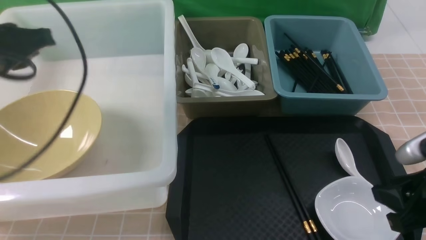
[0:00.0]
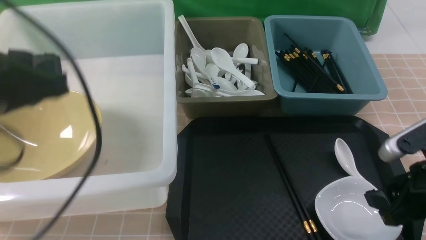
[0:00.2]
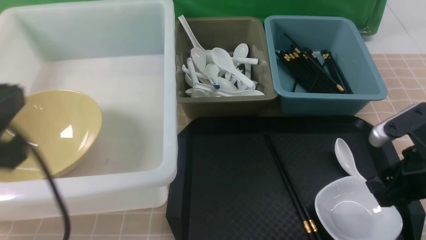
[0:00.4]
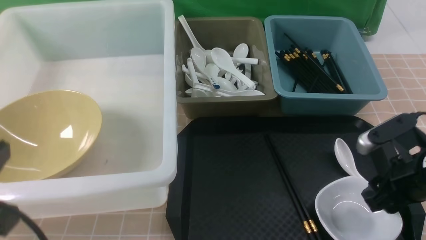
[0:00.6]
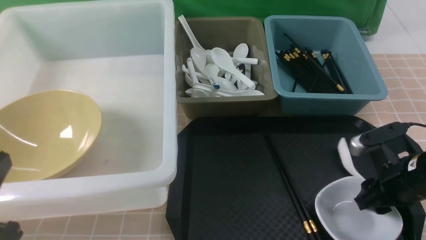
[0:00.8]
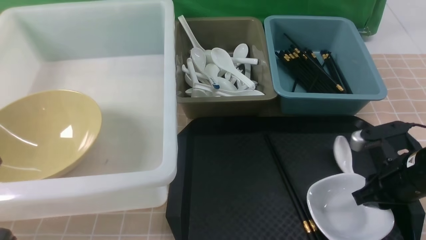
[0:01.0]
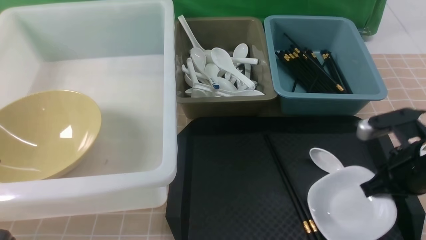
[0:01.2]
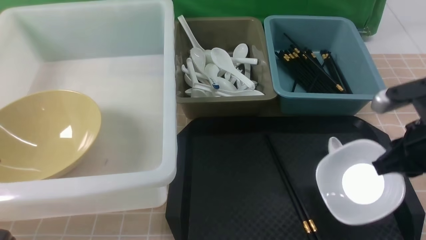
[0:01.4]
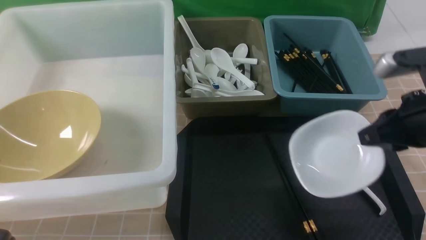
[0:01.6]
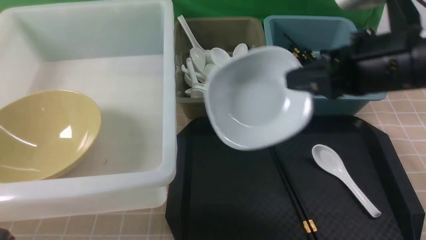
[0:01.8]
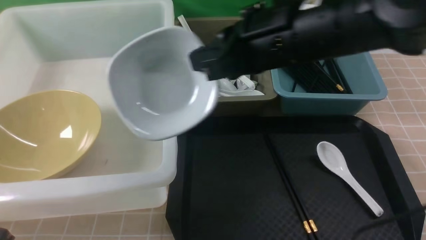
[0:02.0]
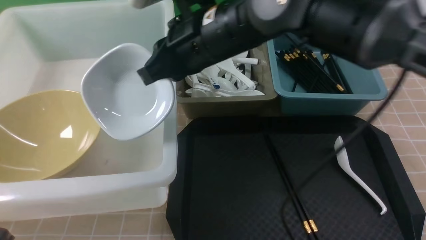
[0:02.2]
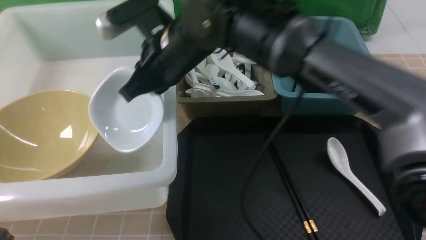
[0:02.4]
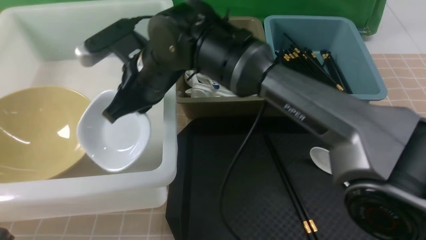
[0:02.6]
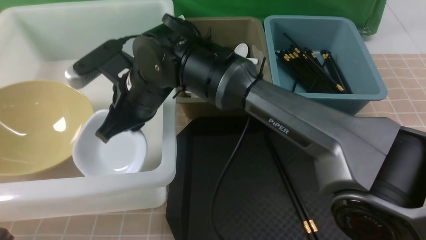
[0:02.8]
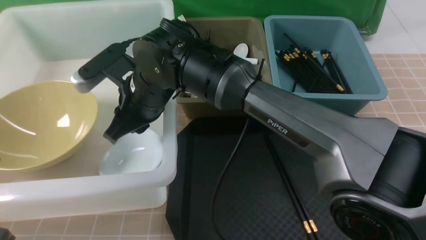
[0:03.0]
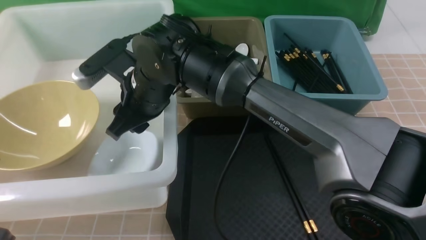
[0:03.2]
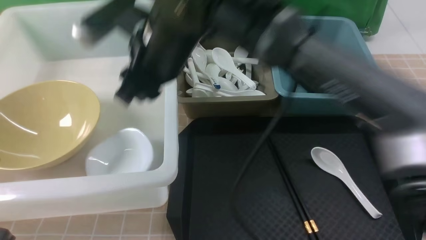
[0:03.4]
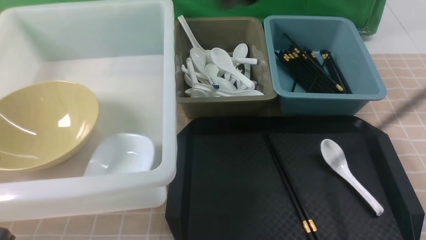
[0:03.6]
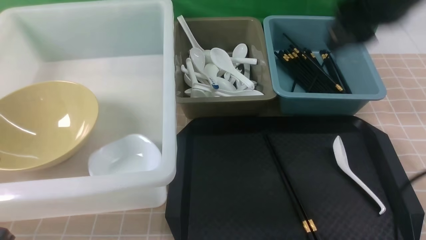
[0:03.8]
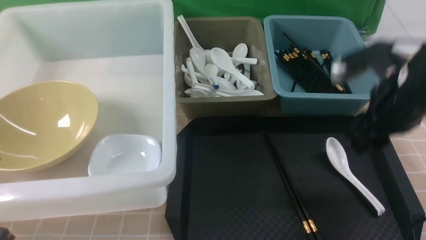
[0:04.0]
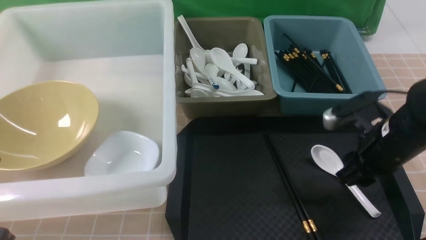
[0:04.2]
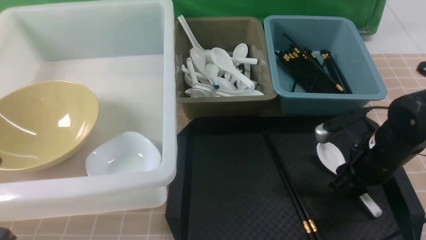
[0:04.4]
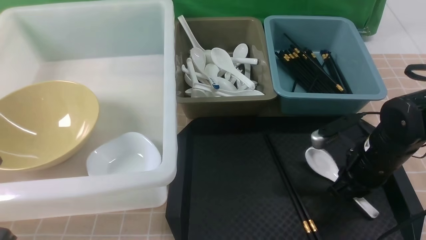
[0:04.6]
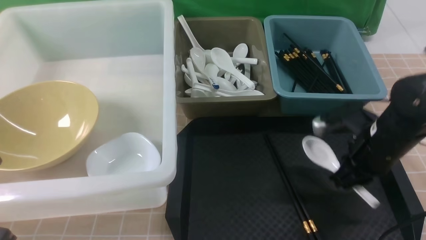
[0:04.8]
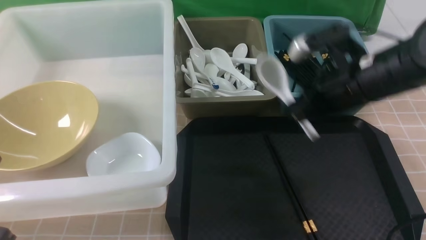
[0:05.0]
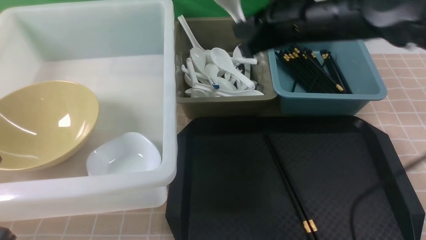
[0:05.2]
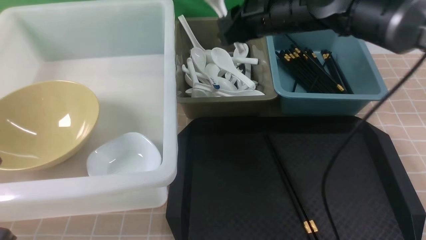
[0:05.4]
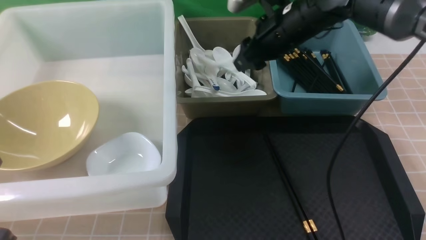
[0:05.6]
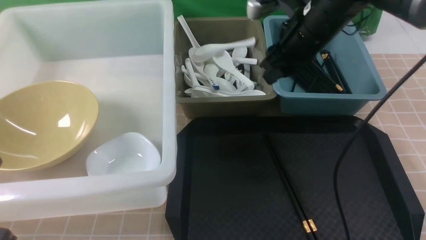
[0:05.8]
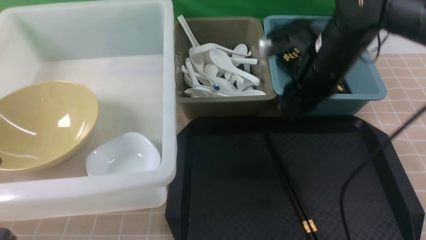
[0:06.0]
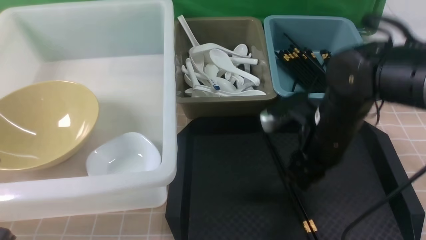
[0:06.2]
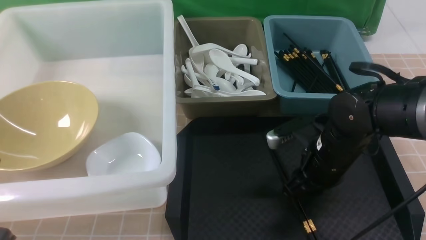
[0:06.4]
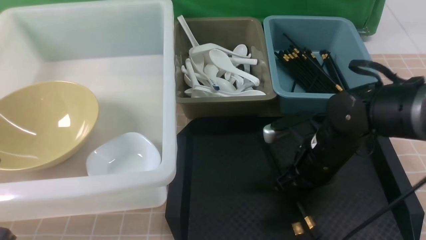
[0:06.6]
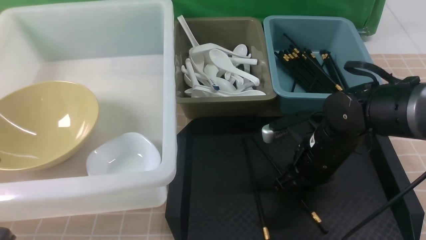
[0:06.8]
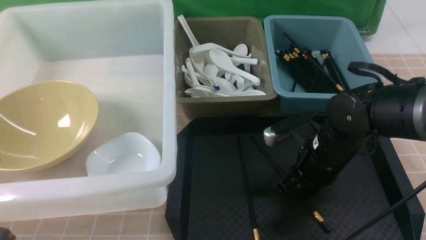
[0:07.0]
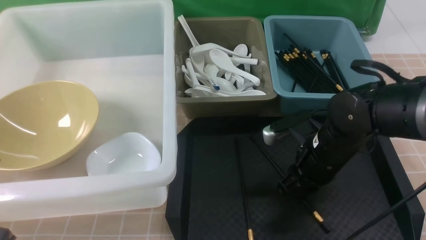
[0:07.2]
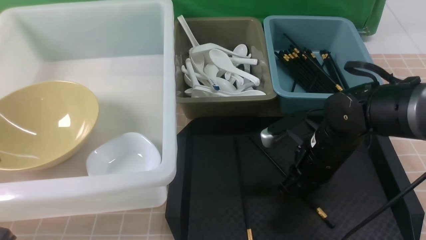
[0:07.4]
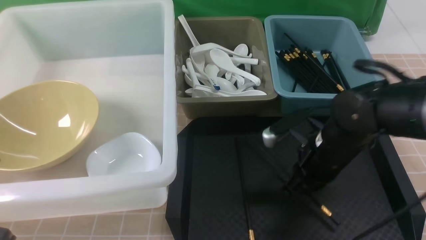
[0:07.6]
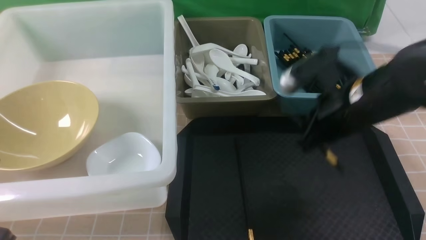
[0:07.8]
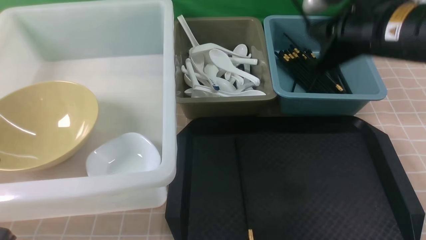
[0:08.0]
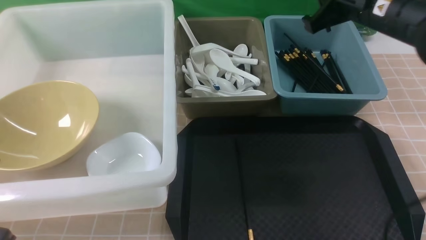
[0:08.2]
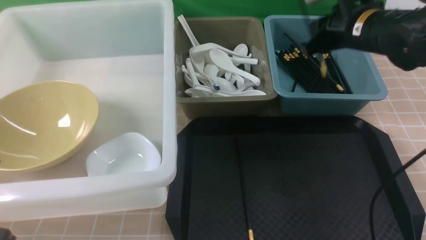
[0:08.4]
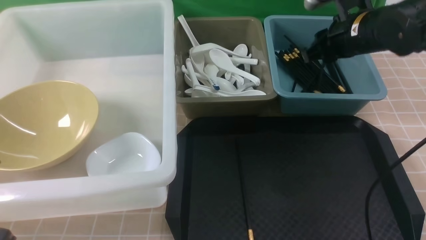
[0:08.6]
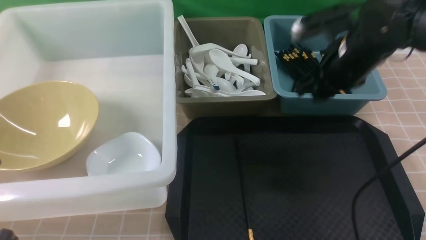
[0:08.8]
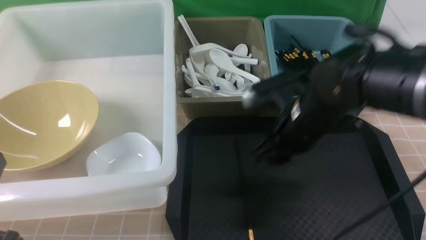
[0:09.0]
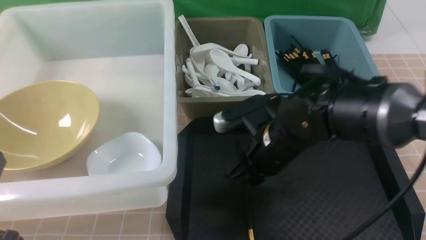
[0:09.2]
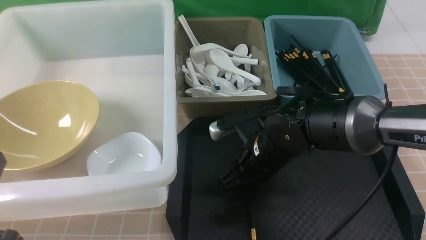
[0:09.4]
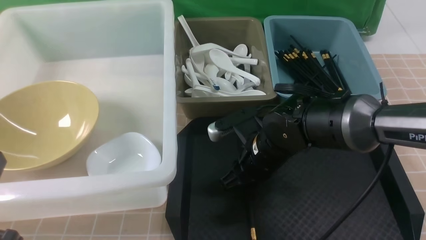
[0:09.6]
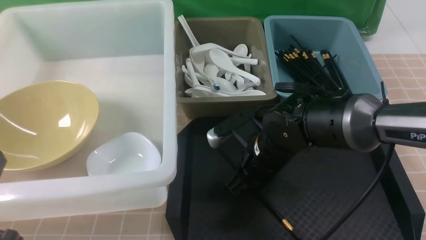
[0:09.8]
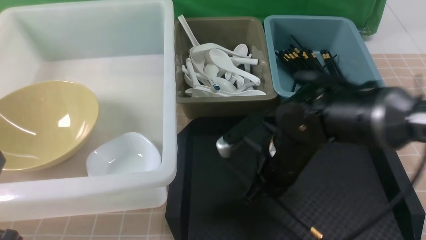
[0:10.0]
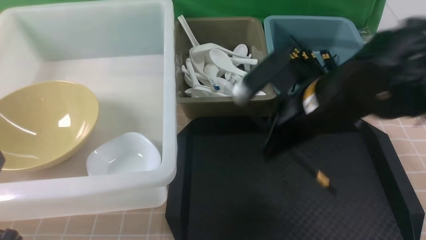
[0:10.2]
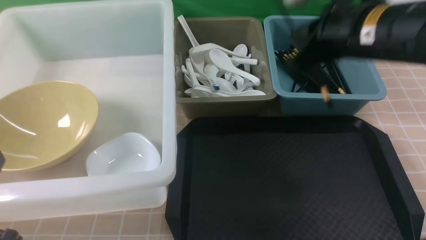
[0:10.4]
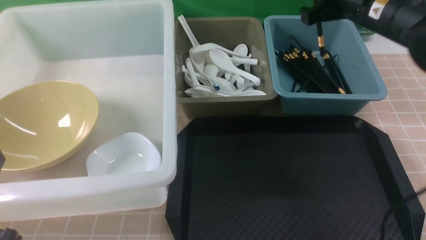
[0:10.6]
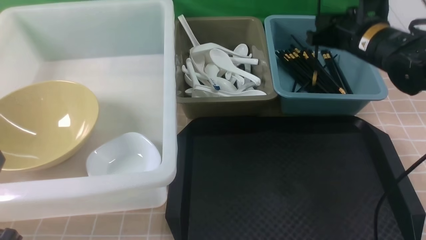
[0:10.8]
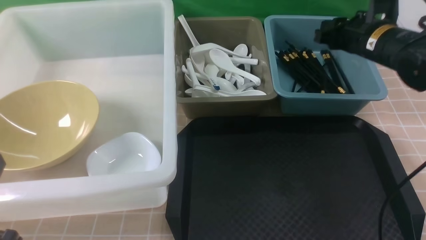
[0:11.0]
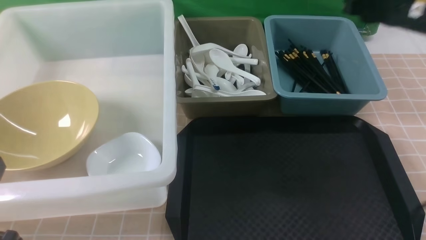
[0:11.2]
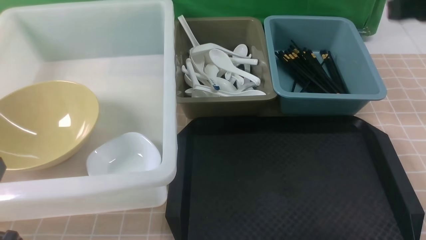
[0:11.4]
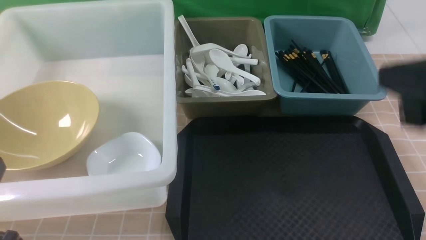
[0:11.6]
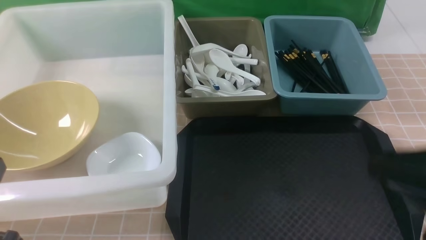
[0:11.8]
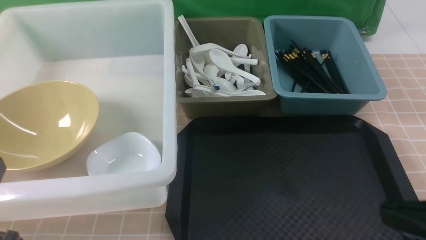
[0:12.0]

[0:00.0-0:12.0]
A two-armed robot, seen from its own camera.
Task of the whole recording: on brown table put chopsticks spoon bowls plates into blue grey white boxes.
Step, 0:00.0 to 0:01.4: use the right arm to grab the plate.
Step, 0:01.8 to 0:03.2: use the right arm to put the plate into the large storage box on the left.
Step, 0:03.4 to 0:05.0: use the right arm to grab the soup spoon in the middle.
Step, 0:05.2 to 0:06.0: use the right arm to put the soup spoon into the small storage box in the middle.
Step, 0:06.2 to 0:08.0: use the right arm to grab a chopstick.
Step, 0:08.2 to 0:08.6: use the right arm to put a chopstick into the small storage box on the right.
Step, 0:08.8 to 0:10.0: use the right arm to grab a chopstick.
Step, 0:10.2 to 0:11.2: use the right arm to put a chopstick into the small storage box on the right.
0:00.0 to 0:01.6: The right gripper shifts approximately 10 cm forward and upward, and closes its fingers, while the left gripper shifts some 20 cm backward.
0:01.6 to 0:03.0: The right gripper moves to the left, about 30 cm, and opens.
0:03.0 to 0:04.4: The right gripper travels to the right by approximately 35 cm.
0:04.4 to 0:06.0: The right gripper is displaced upward, to the left and forward by approximately 15 cm, and closes, then opens again.
0:06.0 to 0:07.6: The right gripper is displaced backward by roughly 5 cm, and closes.
0:07.6 to 0:09.0: The right gripper reaches approximately 10 cm upward, then returns, and opens its fingers.
0:09.0 to 0:10.4: The right gripper moves upward, roughly 10 cm, and closes its fingers.
0:10.4 to 0:12.0: The right gripper moves backward, some 25 cm, and opens, then closes again.

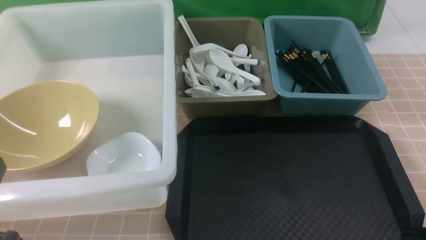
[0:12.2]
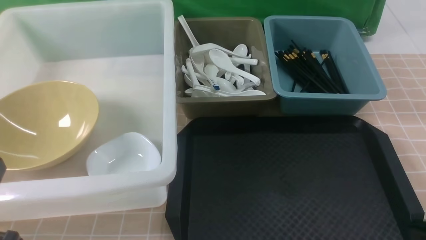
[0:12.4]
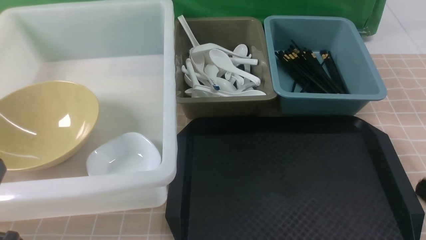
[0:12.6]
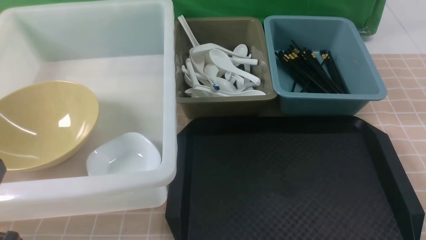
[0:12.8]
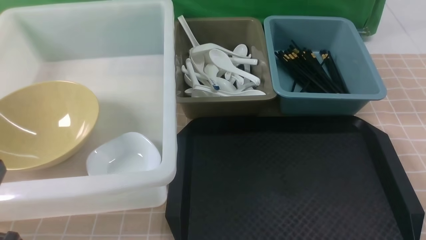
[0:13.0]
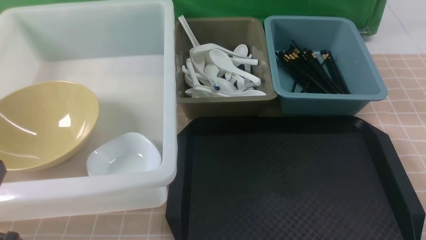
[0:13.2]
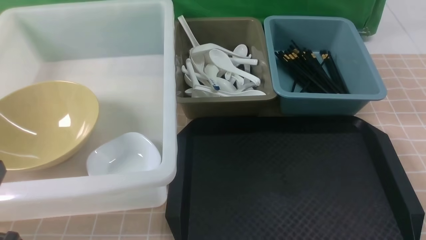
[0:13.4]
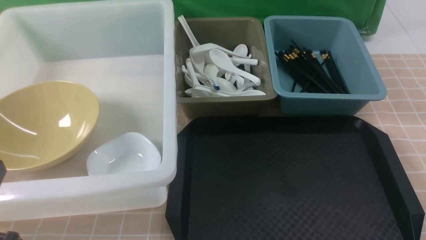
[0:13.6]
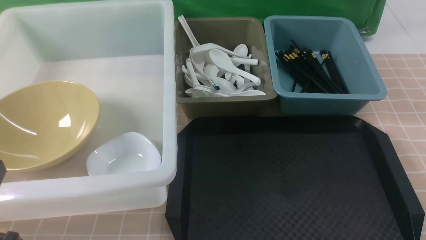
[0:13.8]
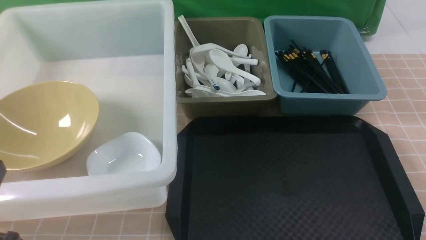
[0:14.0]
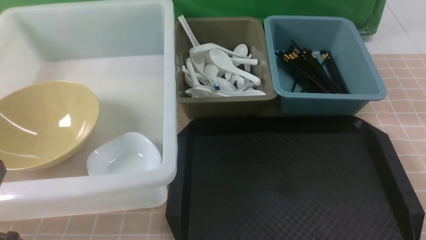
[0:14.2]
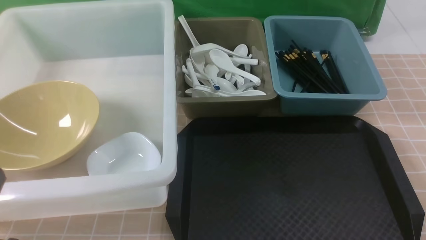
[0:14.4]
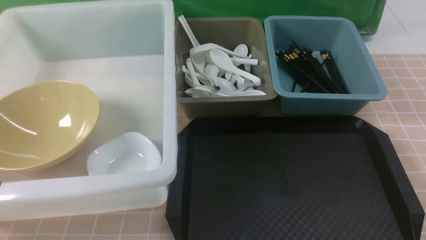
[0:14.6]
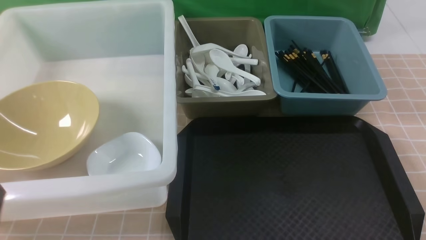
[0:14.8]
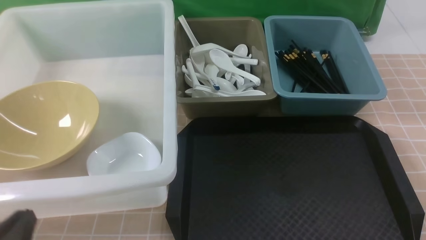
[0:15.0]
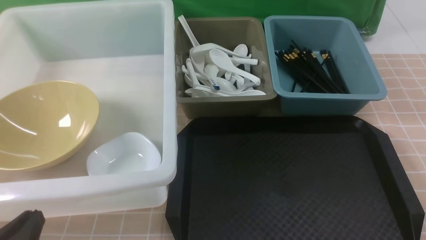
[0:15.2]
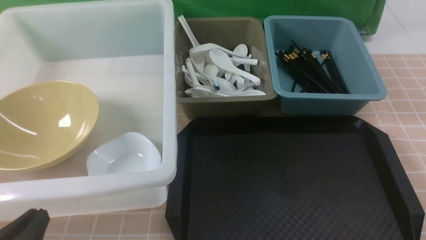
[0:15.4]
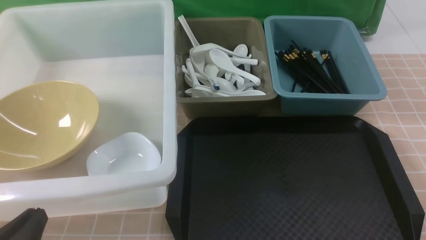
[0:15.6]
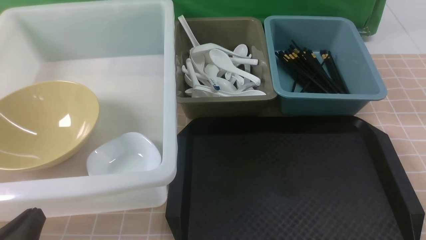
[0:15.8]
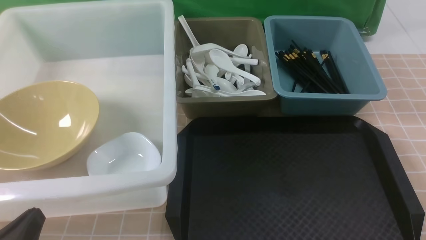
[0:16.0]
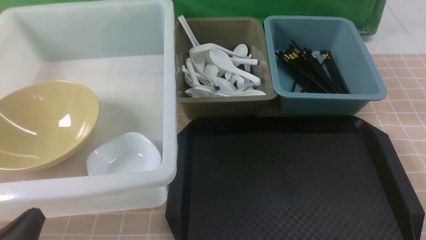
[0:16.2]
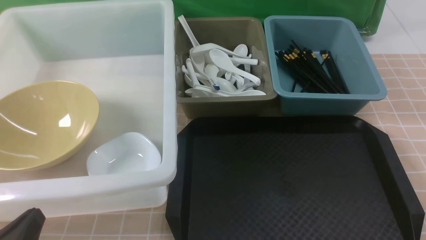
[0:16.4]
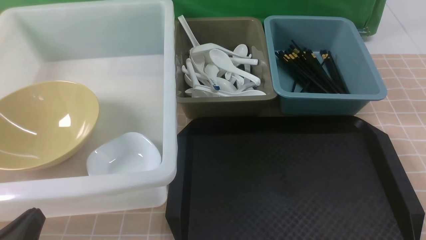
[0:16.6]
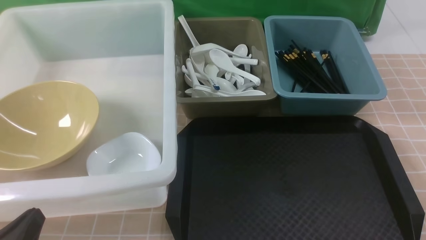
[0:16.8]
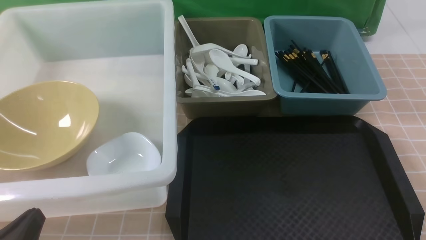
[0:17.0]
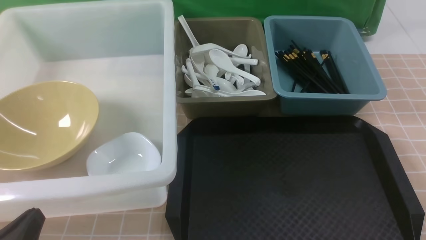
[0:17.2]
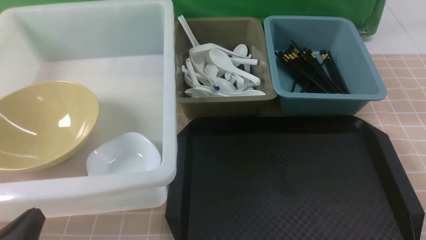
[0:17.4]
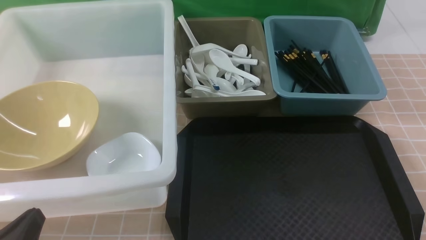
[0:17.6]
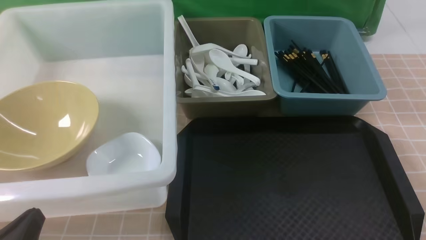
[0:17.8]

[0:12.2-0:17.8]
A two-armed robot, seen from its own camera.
Task of the whole recording: on brown table put chopsticks spoon bowls plates into blue grey white boxes.
0:13.6 to 0:15.0: The left gripper goes some 5 cm downward.
0:16.4 to 0:17.8: The two grippers keep their place.
